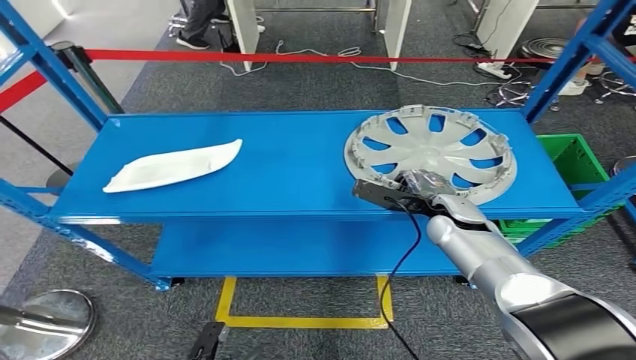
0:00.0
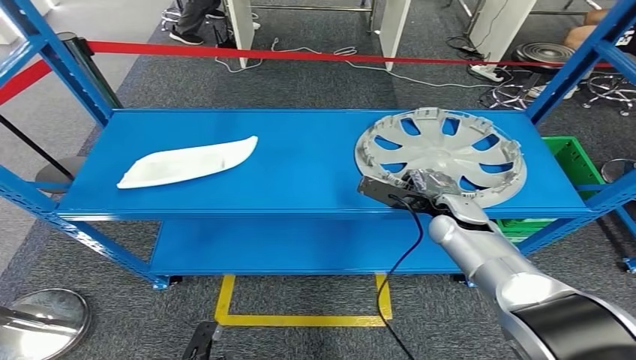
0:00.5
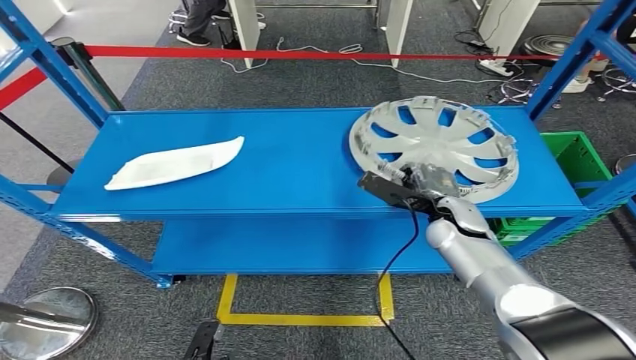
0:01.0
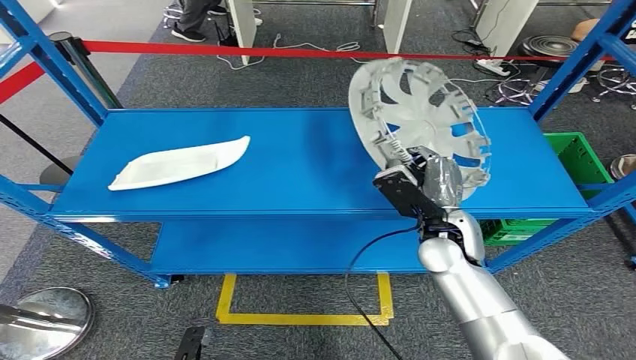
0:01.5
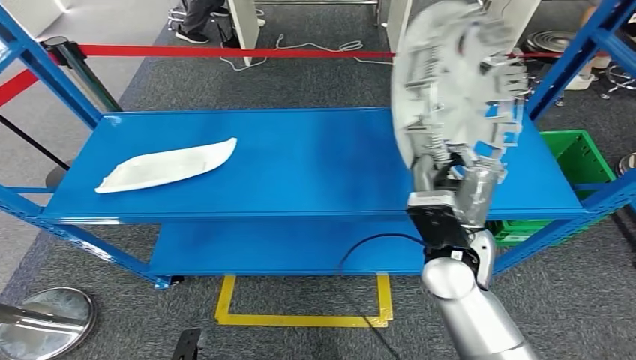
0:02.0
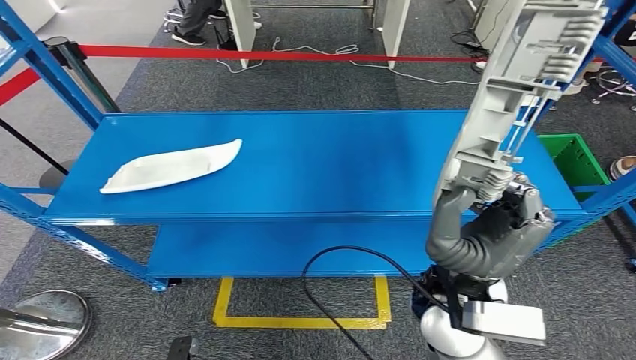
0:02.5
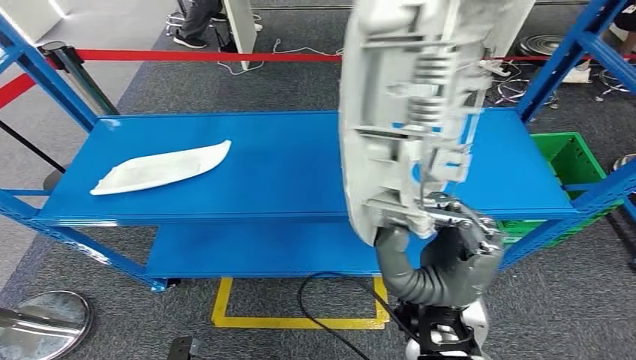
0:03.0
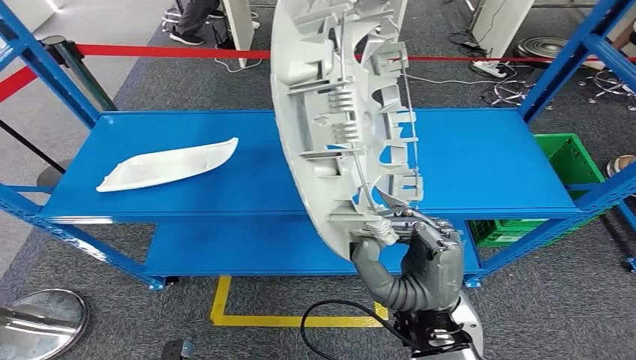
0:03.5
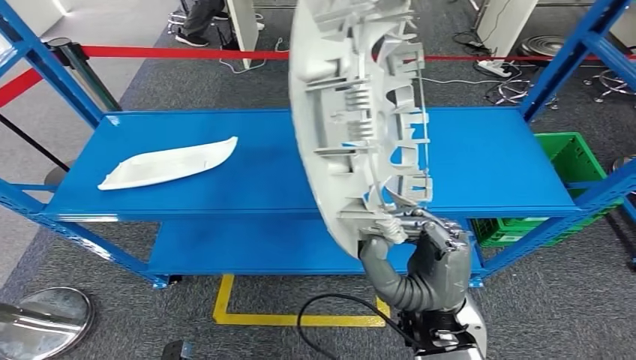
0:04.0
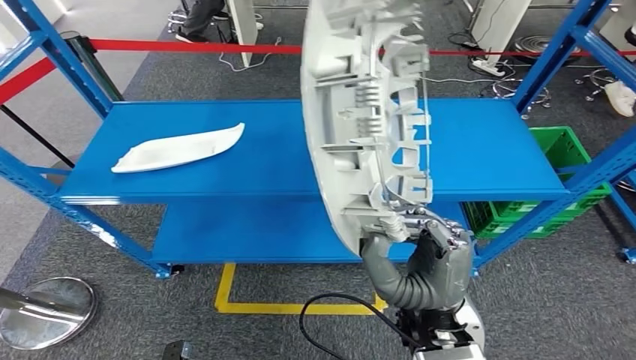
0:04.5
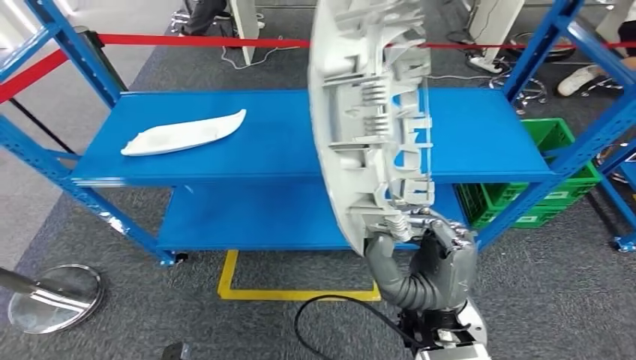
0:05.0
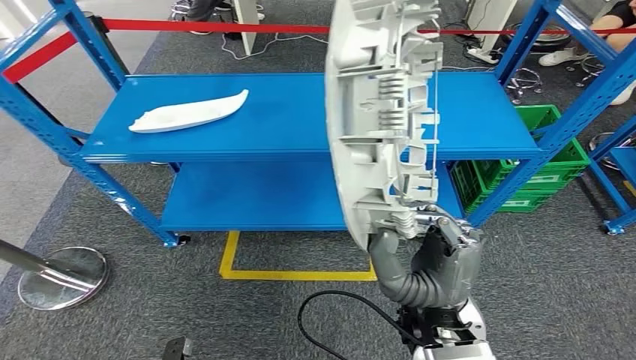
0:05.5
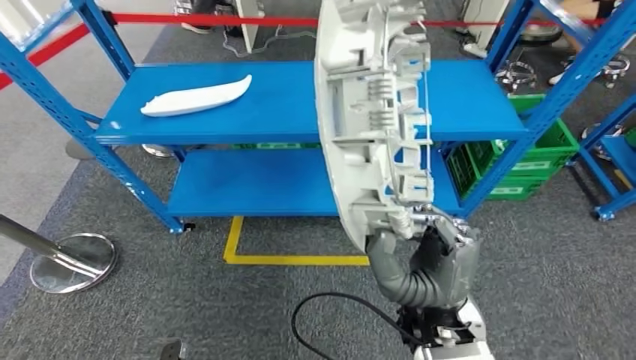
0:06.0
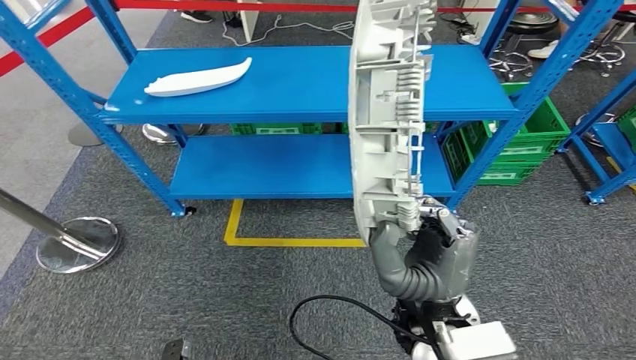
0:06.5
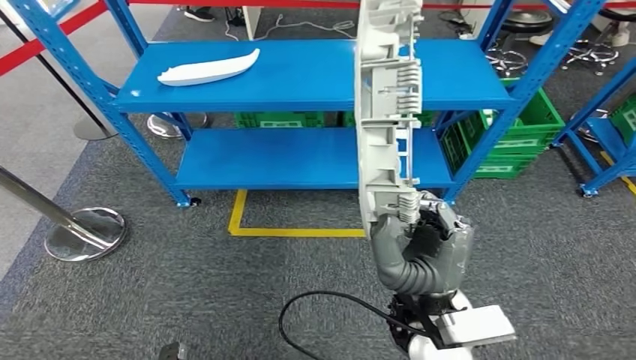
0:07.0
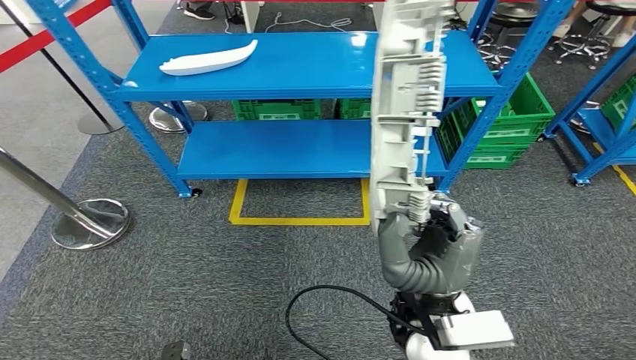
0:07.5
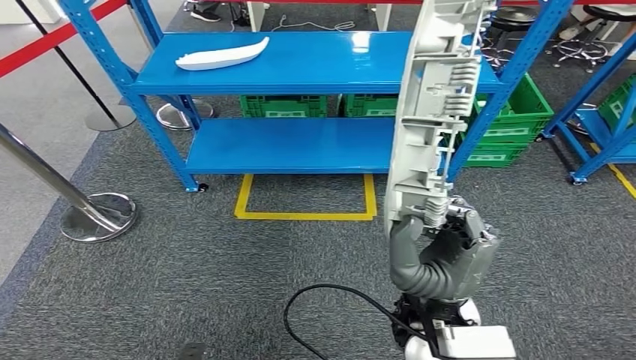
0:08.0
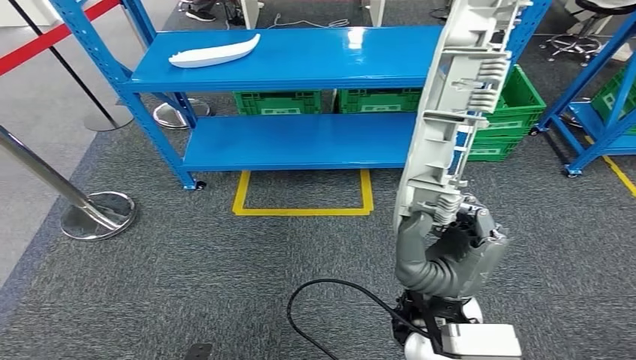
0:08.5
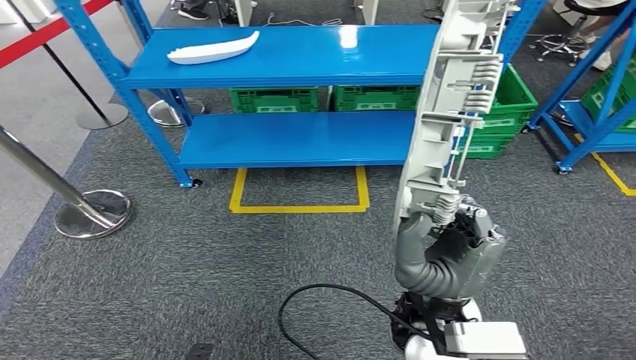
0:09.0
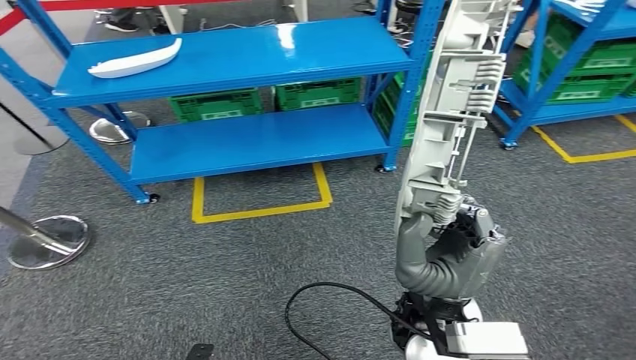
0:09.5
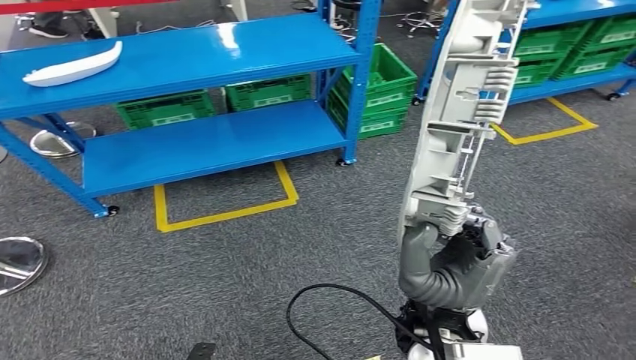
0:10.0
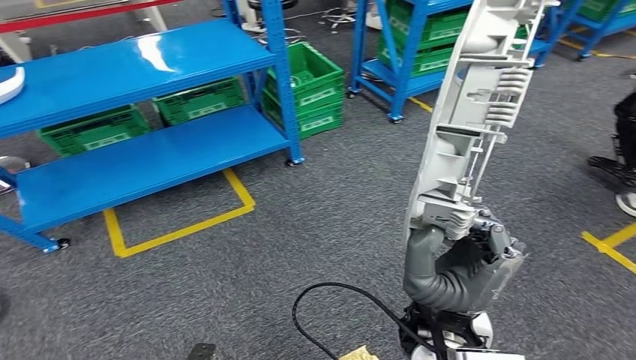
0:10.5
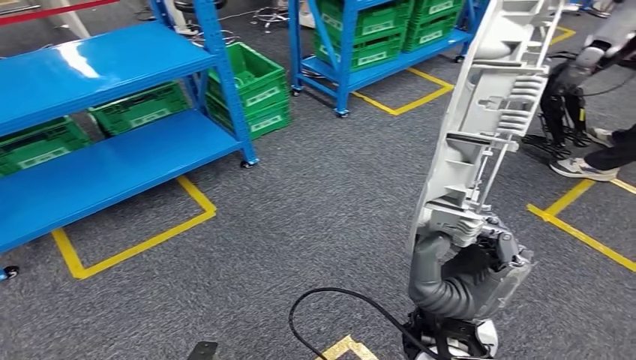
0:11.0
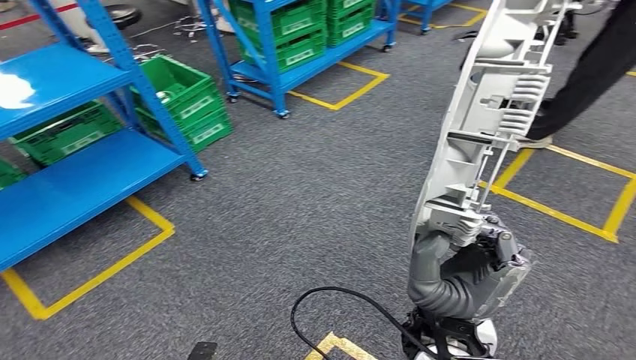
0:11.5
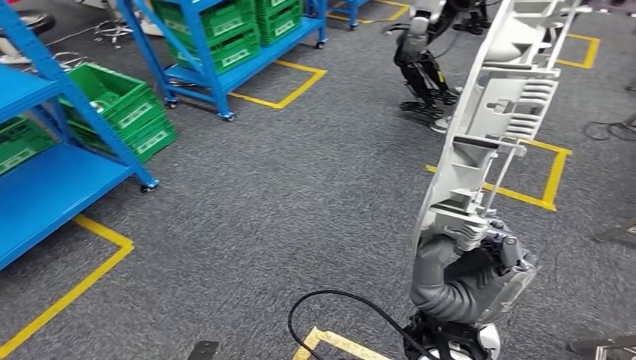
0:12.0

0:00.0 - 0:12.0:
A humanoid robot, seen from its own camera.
Step, 0:00.0 - 0:02.0: Take small components from the rack.

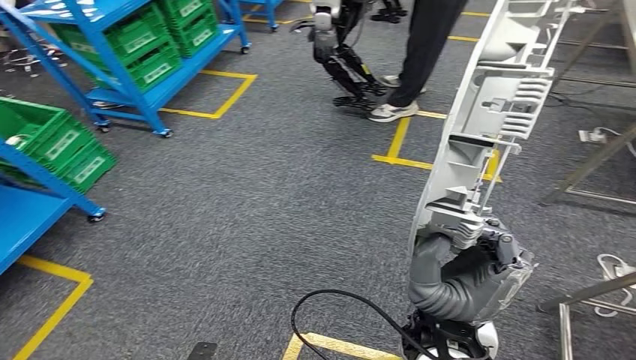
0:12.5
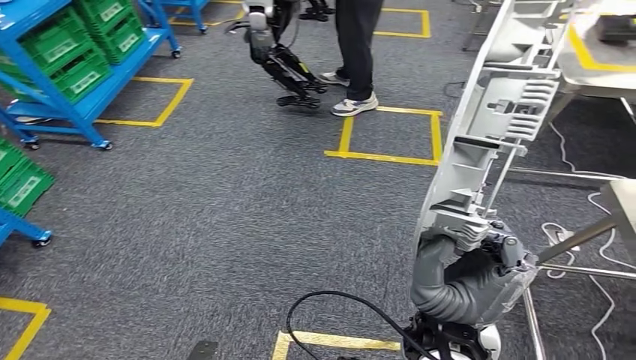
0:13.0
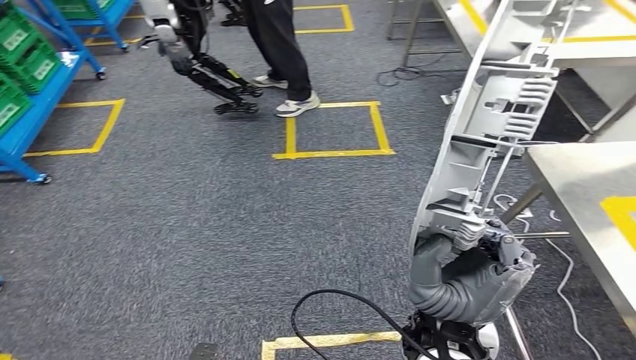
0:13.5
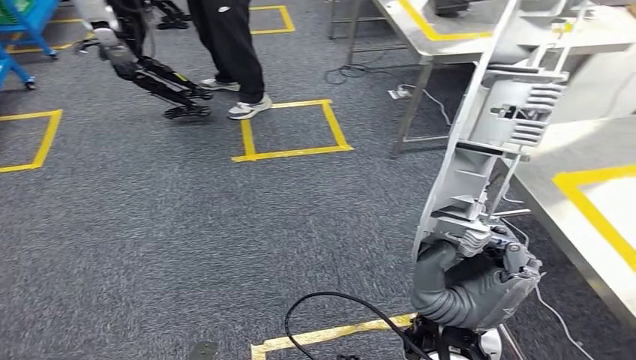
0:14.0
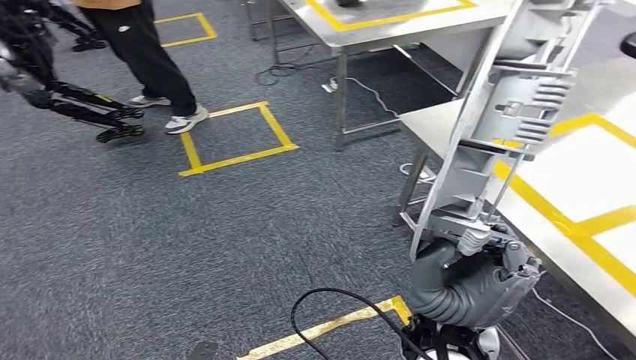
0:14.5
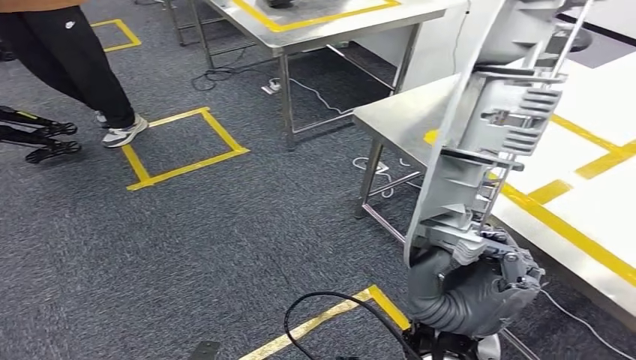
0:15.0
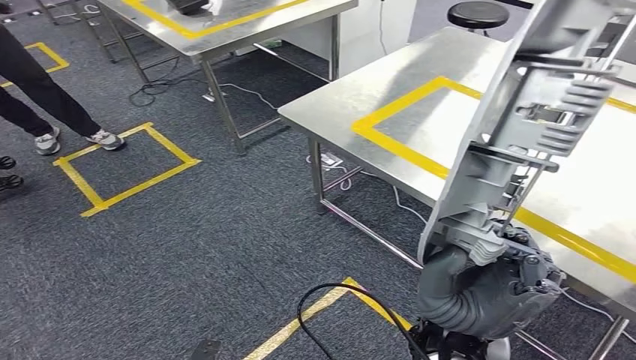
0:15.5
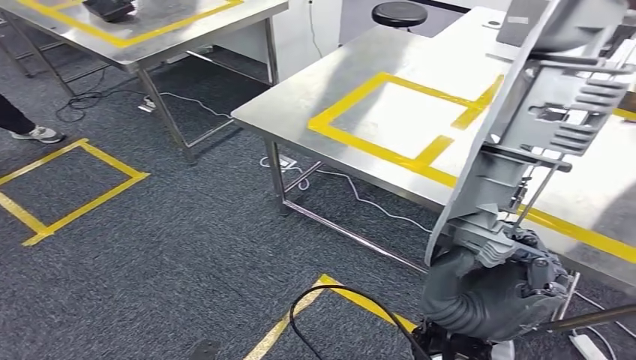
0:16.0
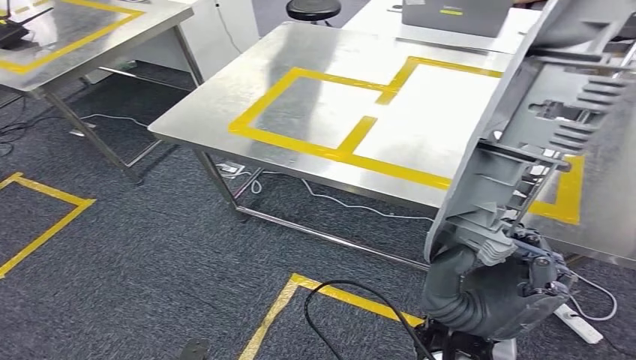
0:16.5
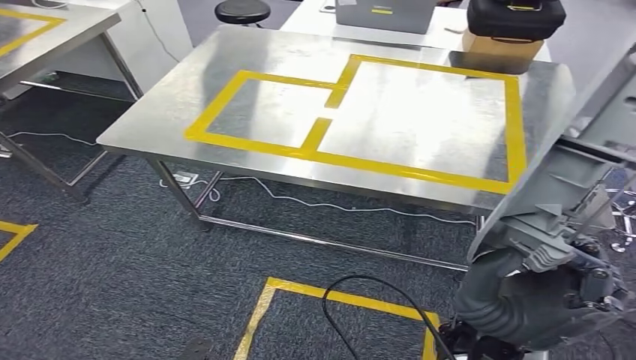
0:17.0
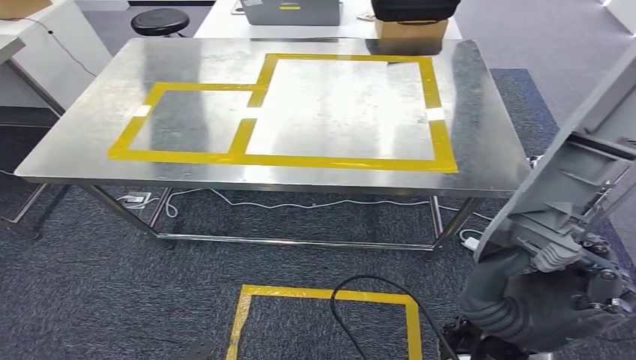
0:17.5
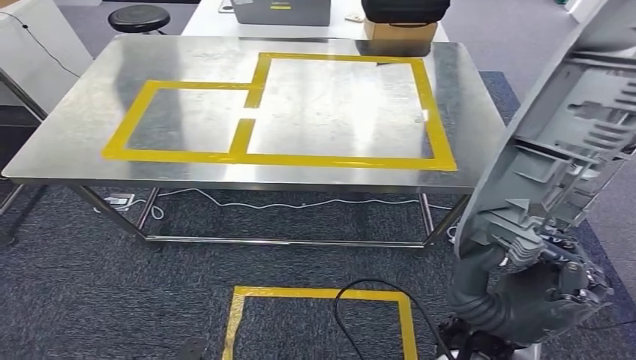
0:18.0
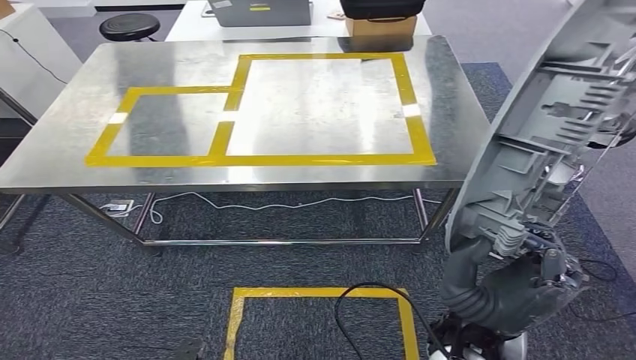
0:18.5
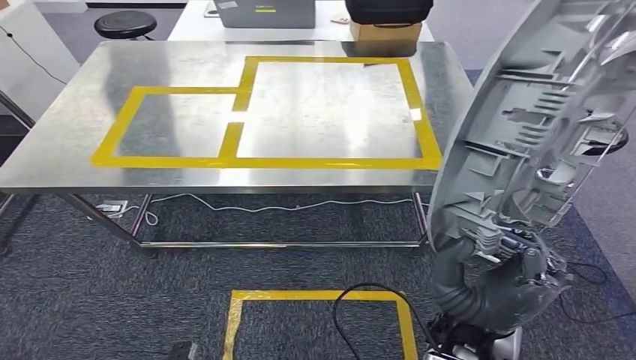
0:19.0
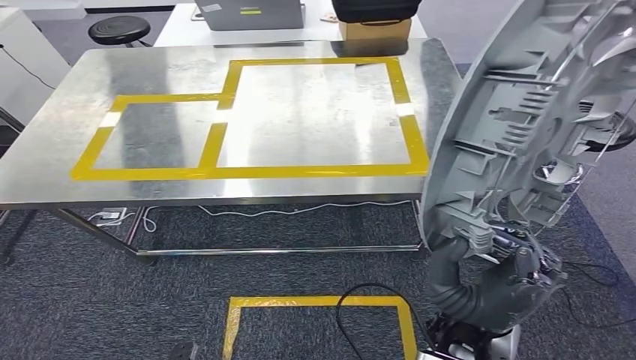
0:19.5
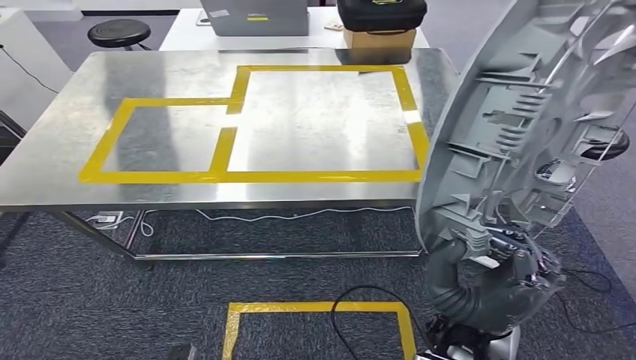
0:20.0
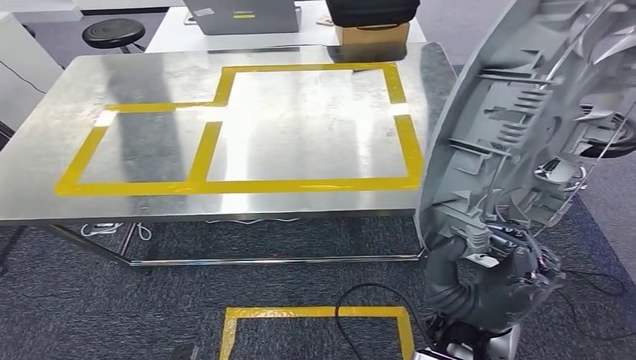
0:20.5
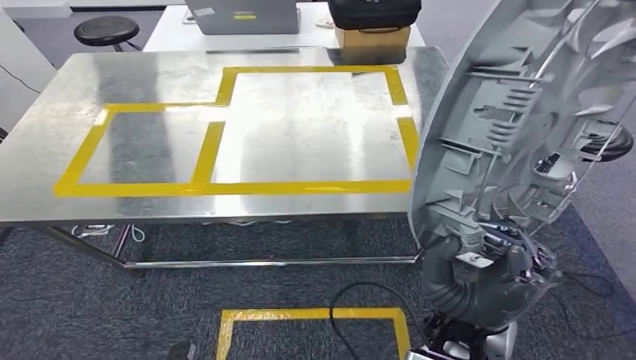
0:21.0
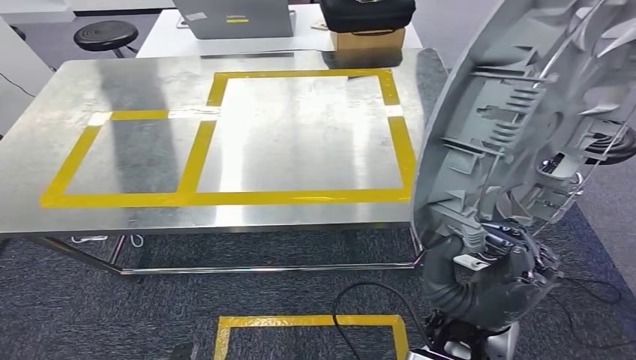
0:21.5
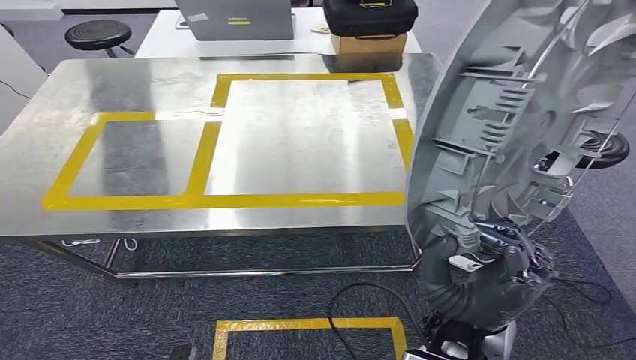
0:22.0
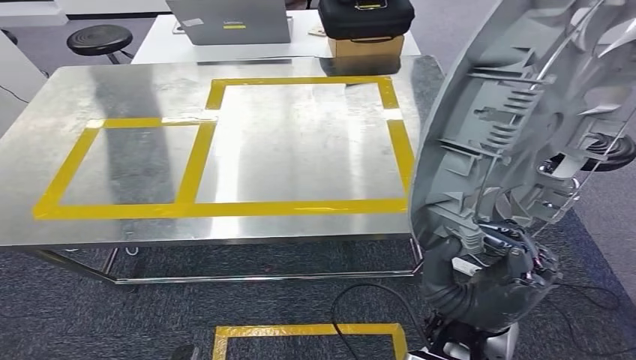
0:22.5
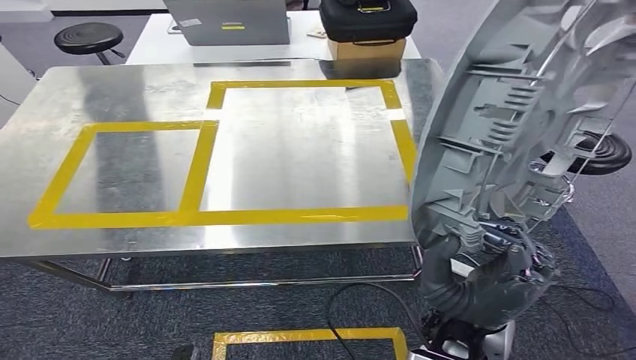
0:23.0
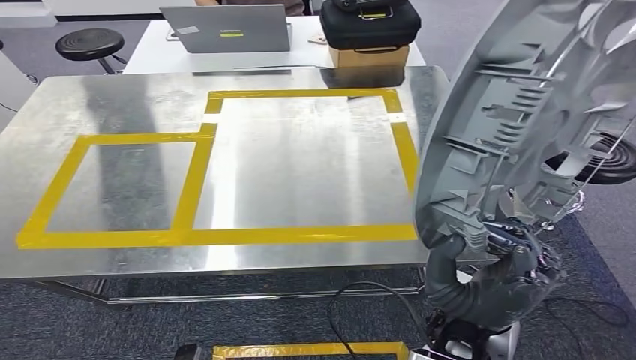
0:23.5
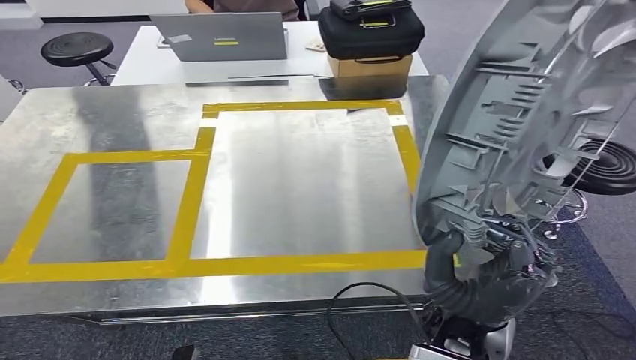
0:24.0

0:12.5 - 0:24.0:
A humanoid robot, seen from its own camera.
Step, 0:12.5 - 0:23.0: Move the small parts to the workbench.
